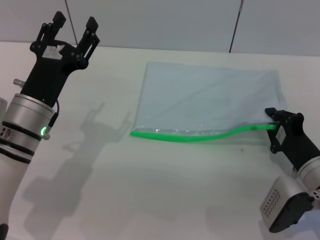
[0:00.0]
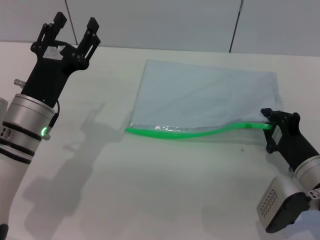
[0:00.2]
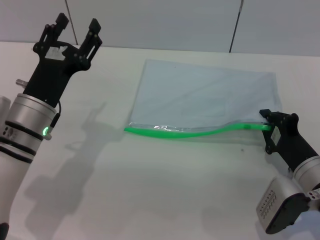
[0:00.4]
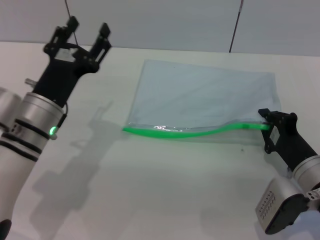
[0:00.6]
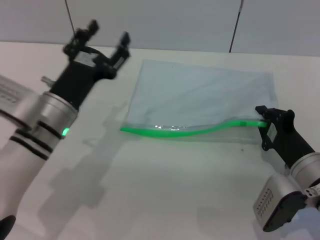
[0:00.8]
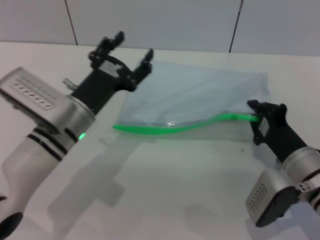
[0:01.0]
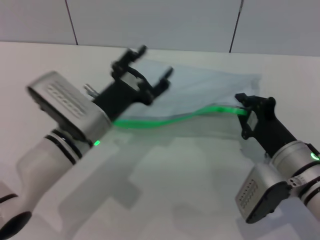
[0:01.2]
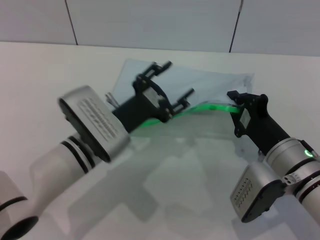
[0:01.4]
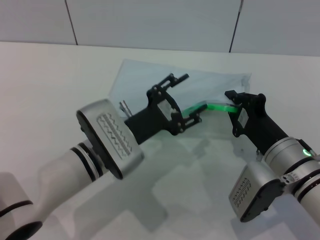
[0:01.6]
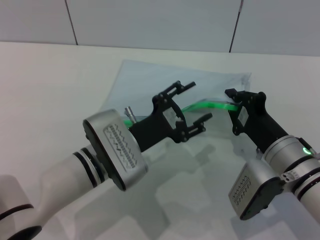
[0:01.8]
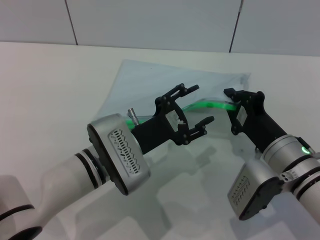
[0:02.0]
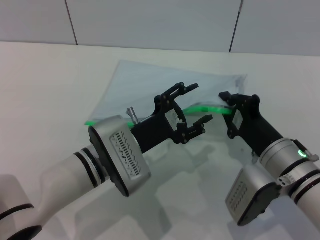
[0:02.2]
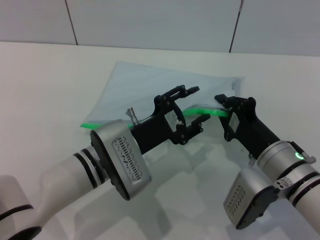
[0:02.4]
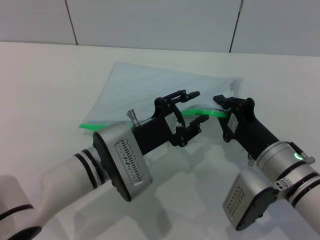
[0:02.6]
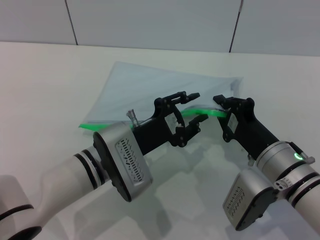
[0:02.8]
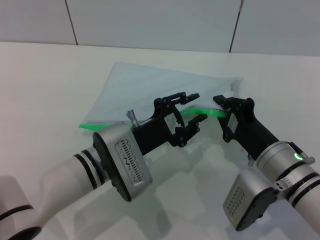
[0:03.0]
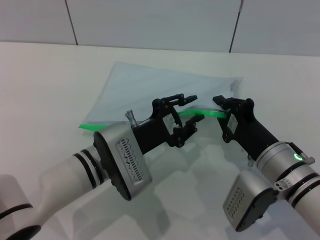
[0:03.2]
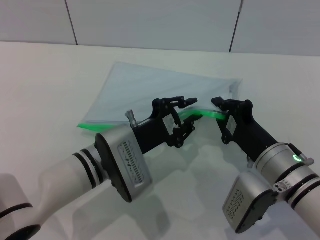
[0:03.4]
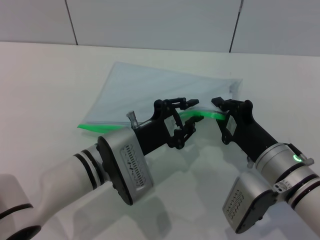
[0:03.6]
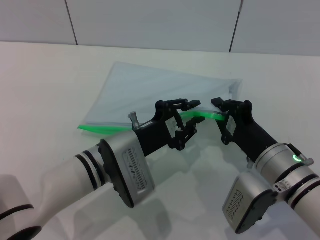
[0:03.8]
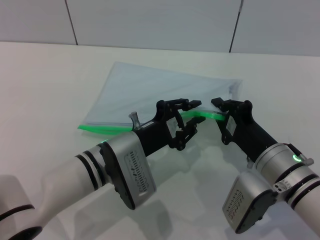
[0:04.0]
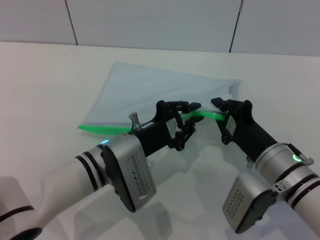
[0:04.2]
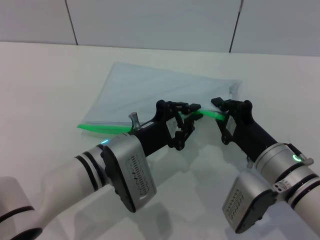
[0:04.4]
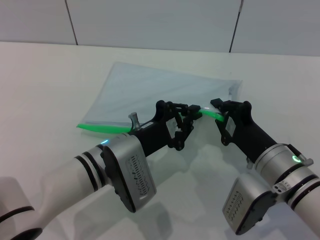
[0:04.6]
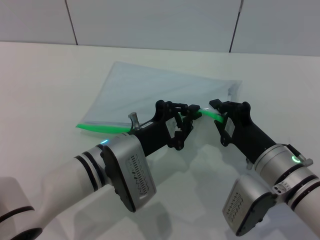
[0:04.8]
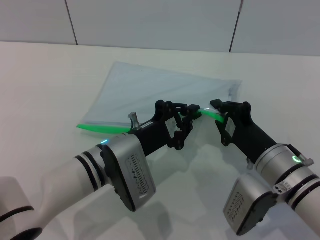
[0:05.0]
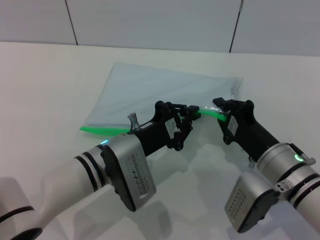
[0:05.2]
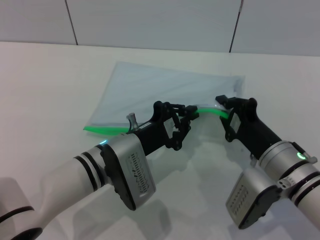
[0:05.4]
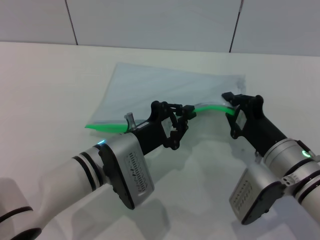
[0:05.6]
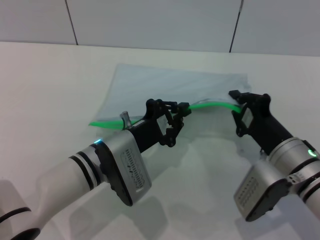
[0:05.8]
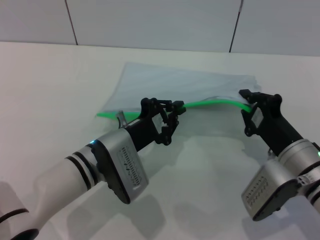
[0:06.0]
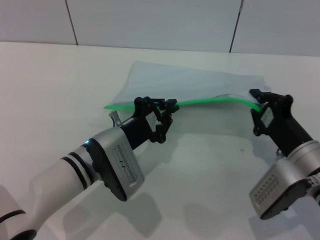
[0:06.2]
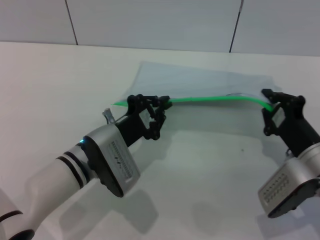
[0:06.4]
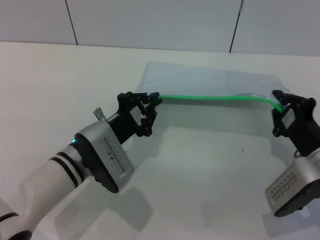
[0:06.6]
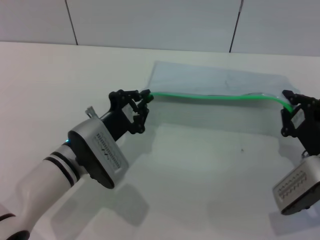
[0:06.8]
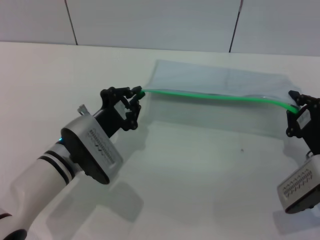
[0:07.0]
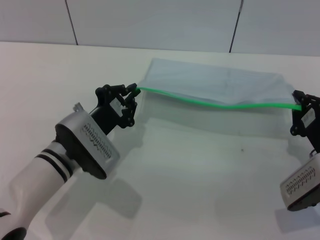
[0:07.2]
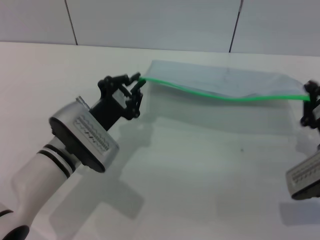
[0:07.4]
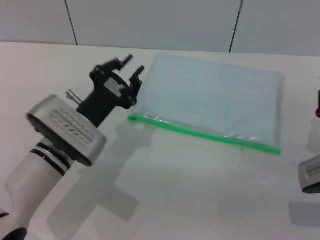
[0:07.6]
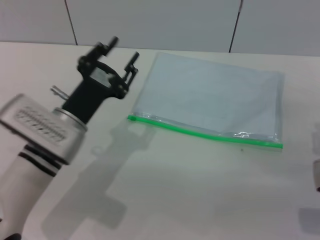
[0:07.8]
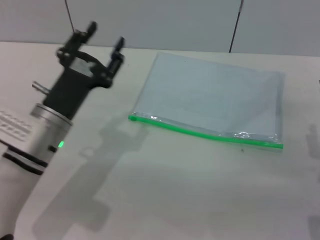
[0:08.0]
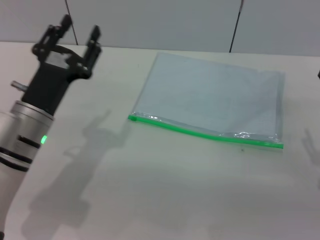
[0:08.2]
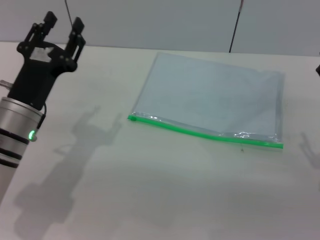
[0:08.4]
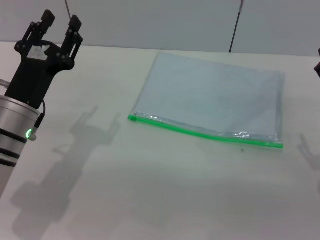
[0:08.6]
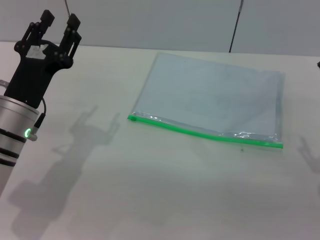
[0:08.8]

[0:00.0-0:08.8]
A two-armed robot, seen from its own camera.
Step, 0:00.4 to 0:07.6: Pulling up the zipper on the transparent plastic bag with the left gripper to close it.
Step, 0:07.8 to 0:08.0: Place the transparent plastic bag.
0:00.0 to 0:01.4: The right gripper travels to the left by about 5 cm. Meanwhile the left gripper is displaced to the right by roughly 10 cm.
0:01.4 to 0:03.0: The left gripper closes up.
0:03.0 to 0:04.4: The left gripper closes up.
0:04.4 to 0:05.8: The grippers move only a little.
0:05.8 to 0:07.4: The right gripper shifts approximately 10 cm to the right.
0:07.4 to 0:08.8: The right gripper moves about 5 cm, and opens. Meanwhile the left gripper is displaced to the left by approximately 5 cm, and opens.

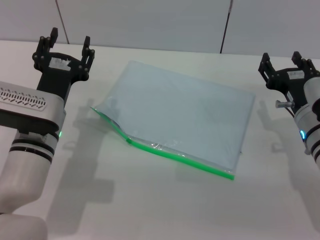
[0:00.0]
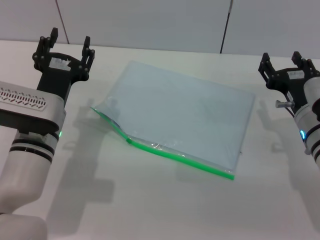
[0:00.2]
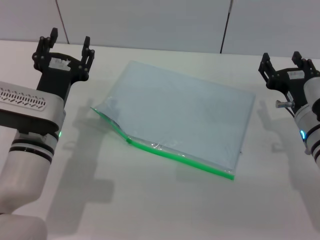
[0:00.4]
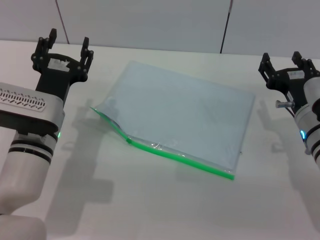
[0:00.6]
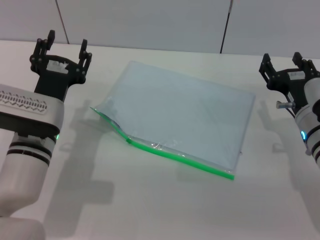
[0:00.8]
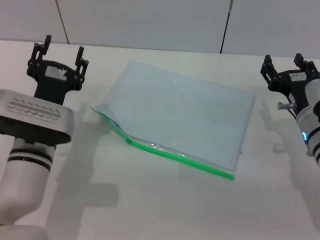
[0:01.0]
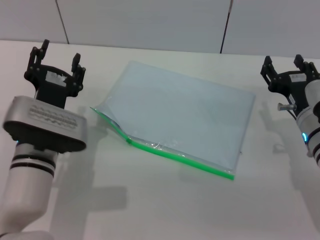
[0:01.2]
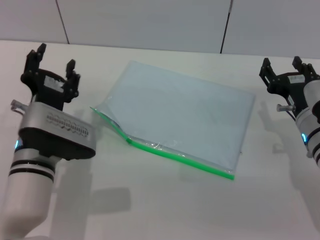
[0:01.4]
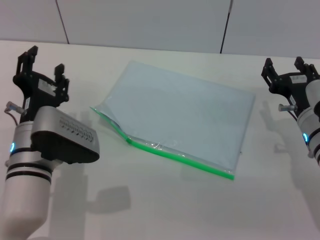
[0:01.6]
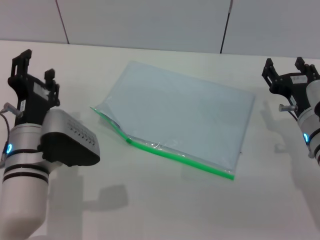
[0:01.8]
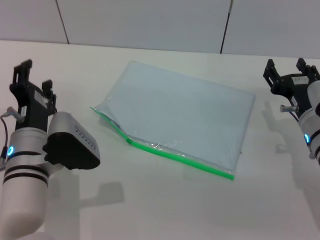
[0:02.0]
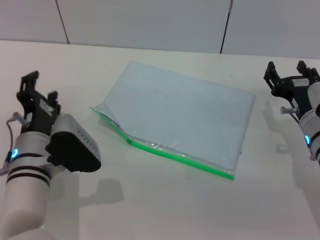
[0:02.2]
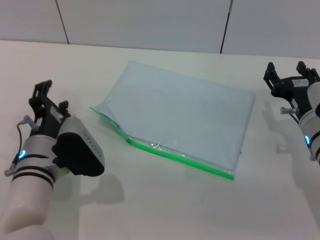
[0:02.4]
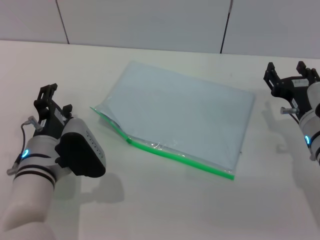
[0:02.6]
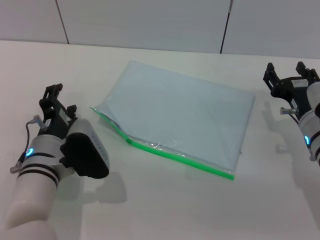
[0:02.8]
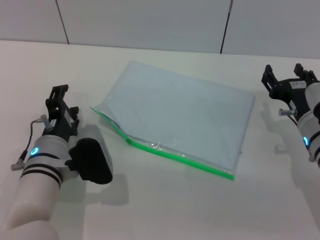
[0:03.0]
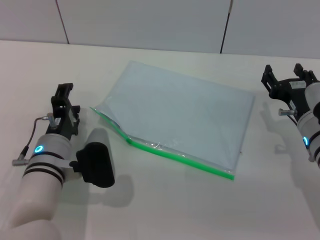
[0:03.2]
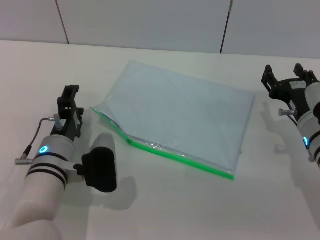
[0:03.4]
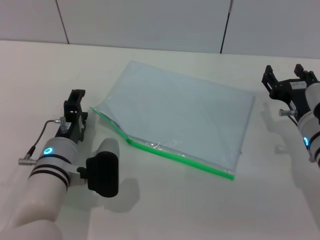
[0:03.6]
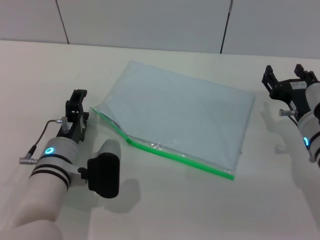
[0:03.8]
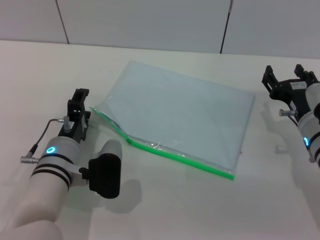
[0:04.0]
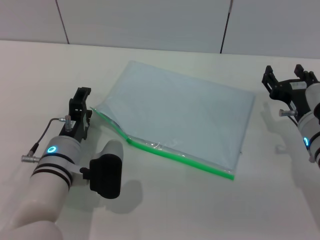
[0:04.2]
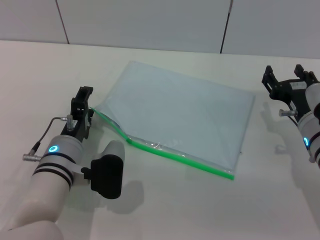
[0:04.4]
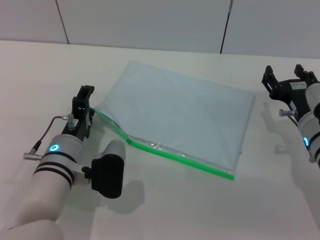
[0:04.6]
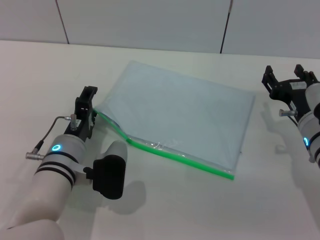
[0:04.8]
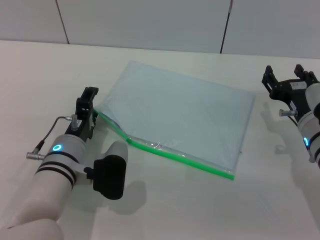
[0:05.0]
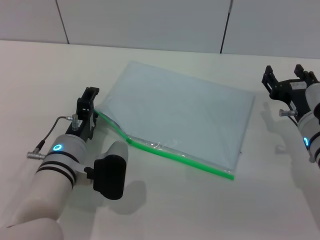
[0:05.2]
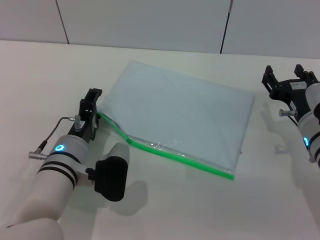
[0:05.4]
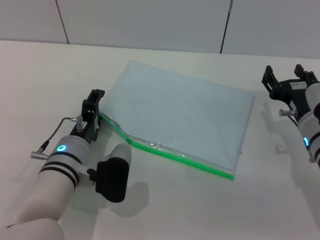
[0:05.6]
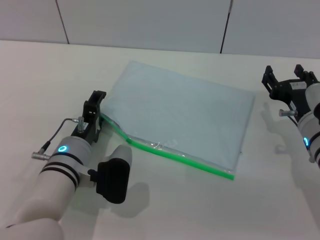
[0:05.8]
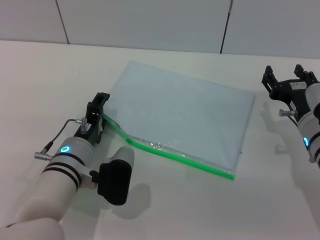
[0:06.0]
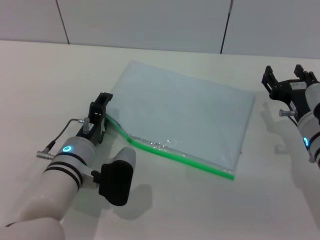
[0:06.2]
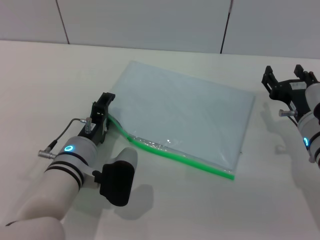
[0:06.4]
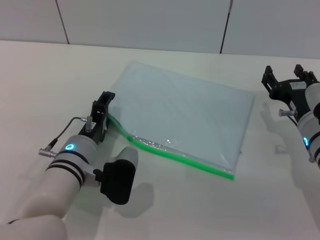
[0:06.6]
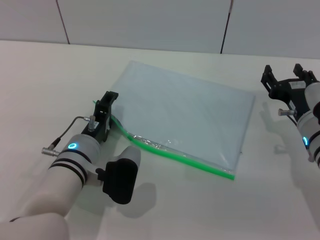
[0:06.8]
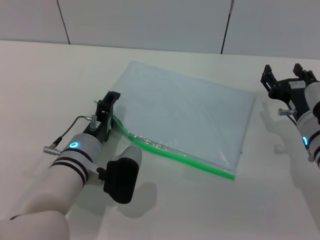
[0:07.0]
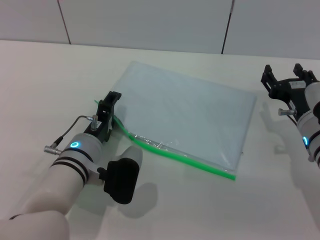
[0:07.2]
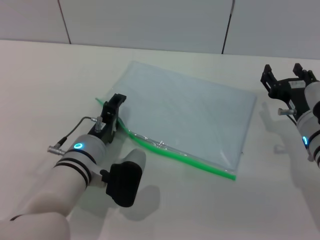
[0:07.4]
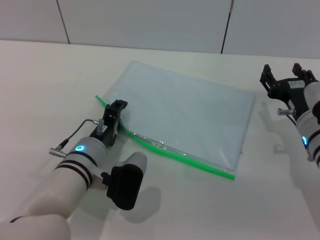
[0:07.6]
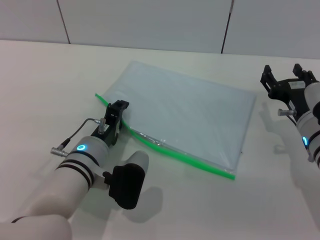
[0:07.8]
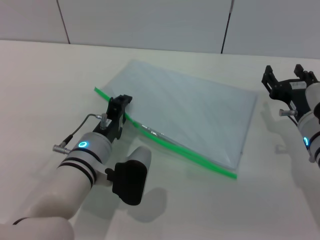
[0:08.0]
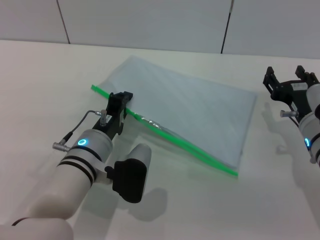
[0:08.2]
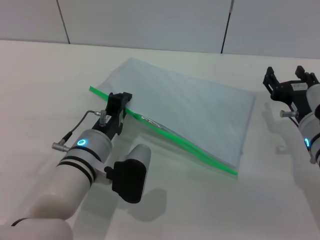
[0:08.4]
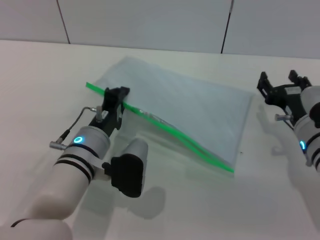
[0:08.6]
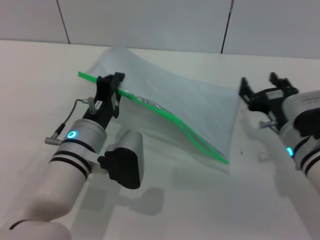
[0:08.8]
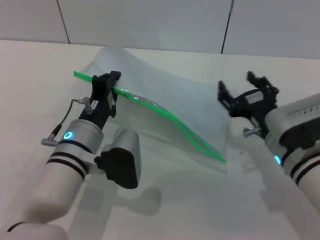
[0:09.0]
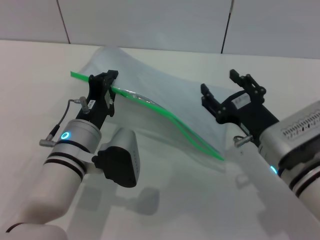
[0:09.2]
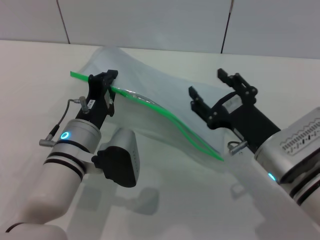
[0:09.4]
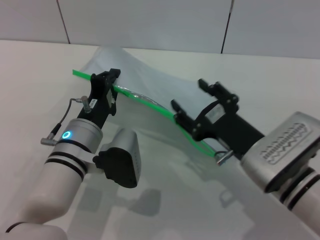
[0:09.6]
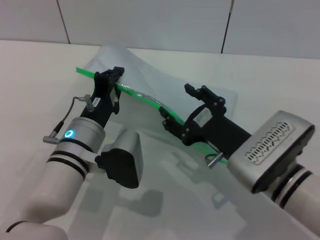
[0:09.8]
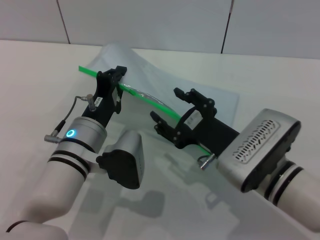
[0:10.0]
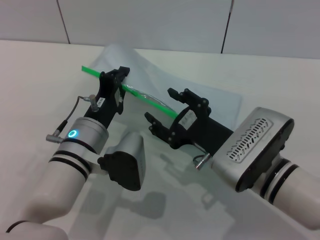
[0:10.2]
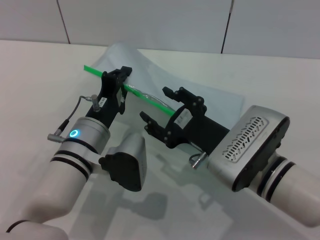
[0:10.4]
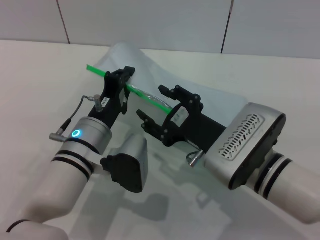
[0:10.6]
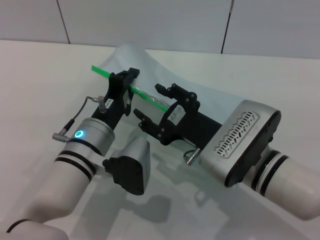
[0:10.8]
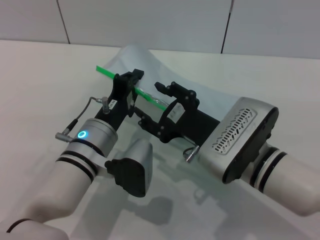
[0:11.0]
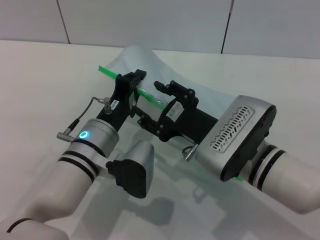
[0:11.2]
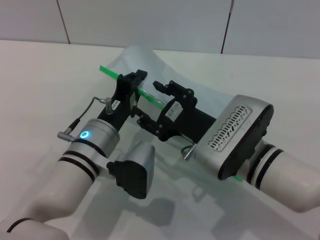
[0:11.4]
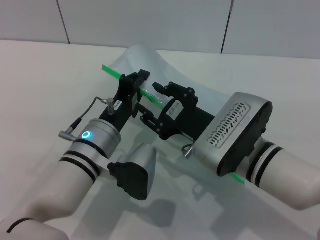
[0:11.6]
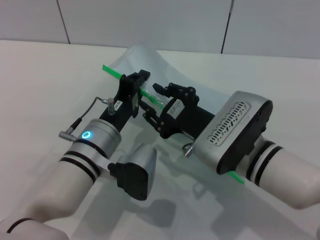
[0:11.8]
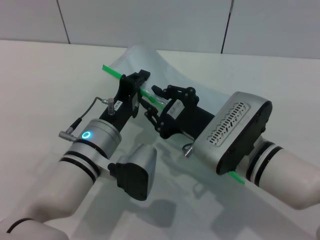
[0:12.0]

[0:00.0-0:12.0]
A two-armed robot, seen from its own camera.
Step, 0:00.0 to 0:08.6: Pick up the transparent plastic bag with the left gripper.
0:03.0 to 0:04.4: The grippers move only a little.
0:04.4 to 0:07.6: The grippers make only small movements.
0:07.6 to 0:09.0: The left gripper closes its fingers.
0:09.0 to 0:10.4: The right gripper moves to the left, some 5 cm.

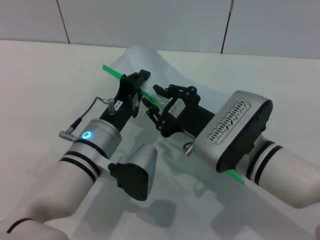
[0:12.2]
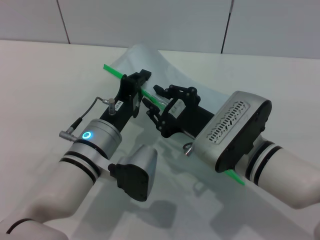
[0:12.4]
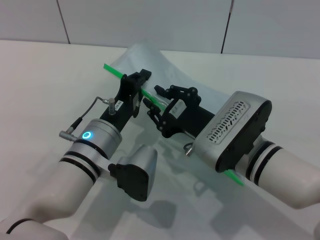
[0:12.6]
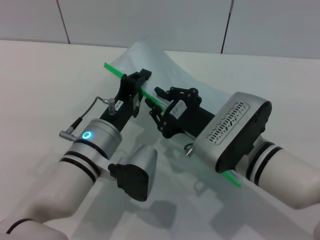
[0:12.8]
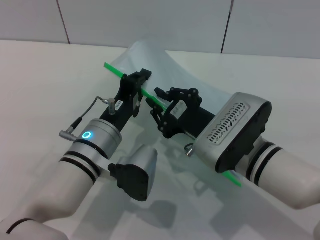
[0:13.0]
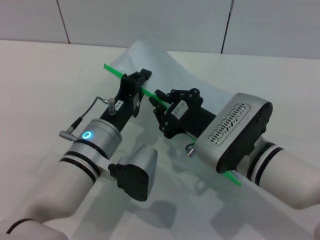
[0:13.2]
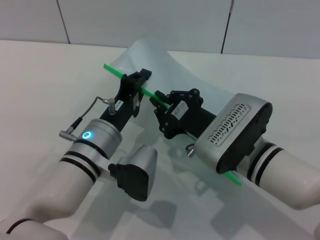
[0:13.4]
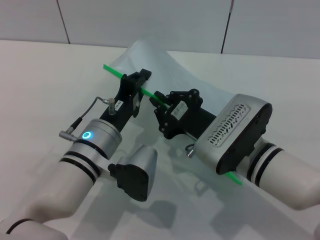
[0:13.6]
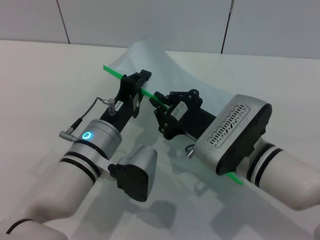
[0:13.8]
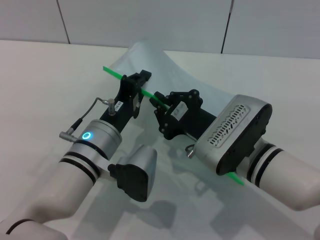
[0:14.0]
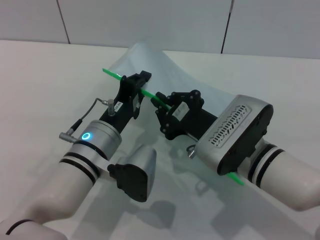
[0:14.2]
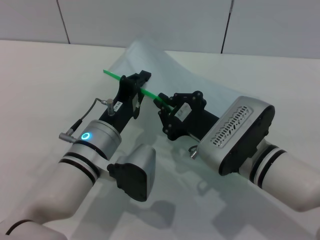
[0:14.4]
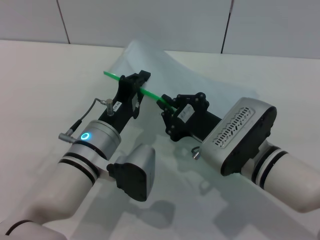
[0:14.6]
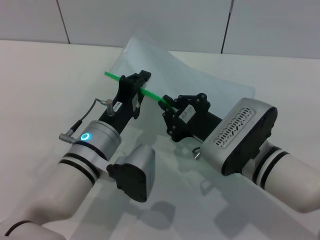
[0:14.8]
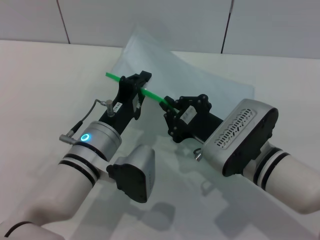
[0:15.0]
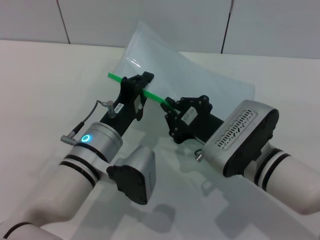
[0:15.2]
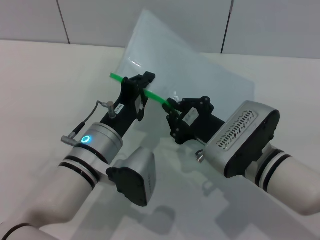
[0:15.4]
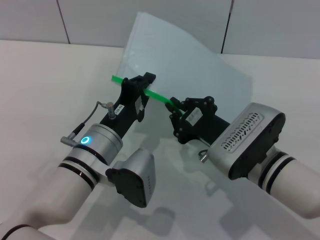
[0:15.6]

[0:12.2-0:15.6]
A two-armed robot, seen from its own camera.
0:12.2 to 0:13.8: The right gripper closes.
0:13.8 to 0:15.6: The grippers make only small movements.
